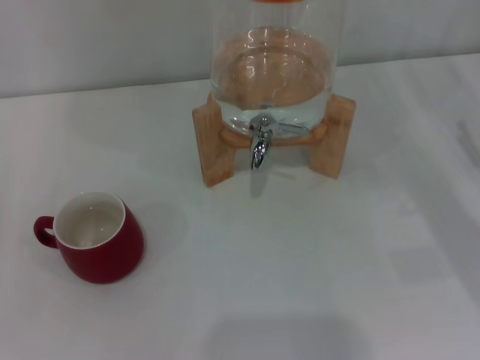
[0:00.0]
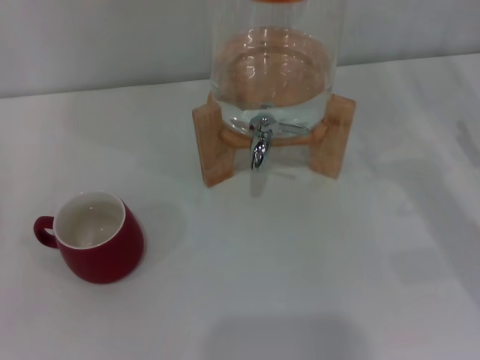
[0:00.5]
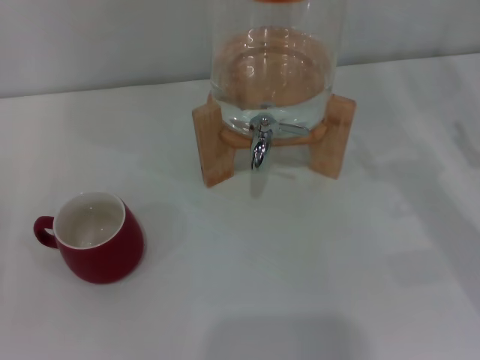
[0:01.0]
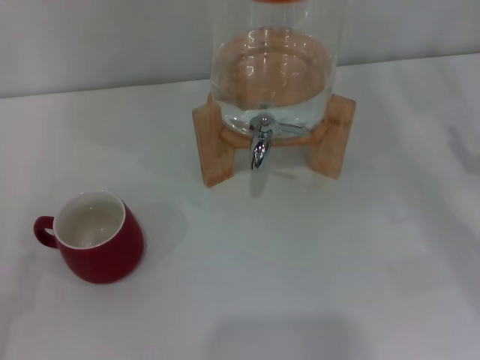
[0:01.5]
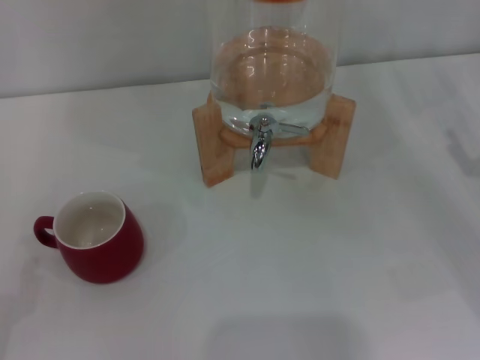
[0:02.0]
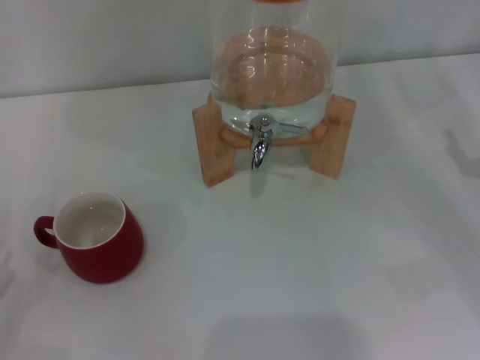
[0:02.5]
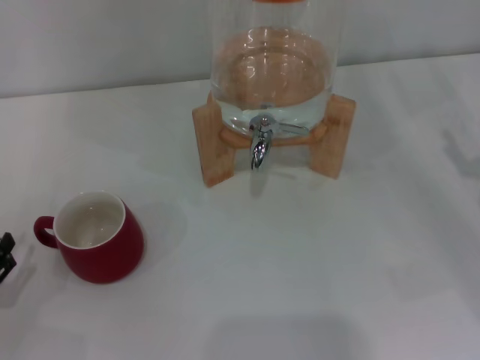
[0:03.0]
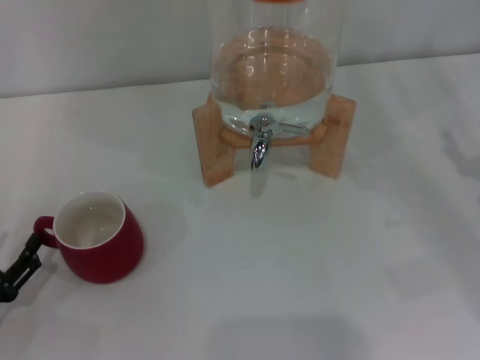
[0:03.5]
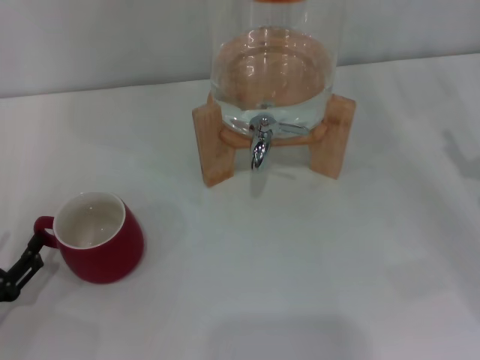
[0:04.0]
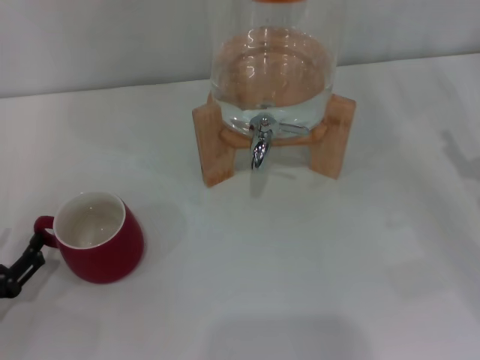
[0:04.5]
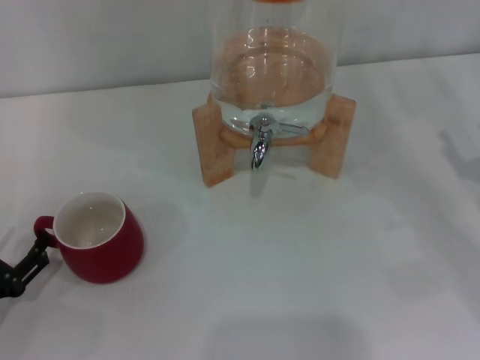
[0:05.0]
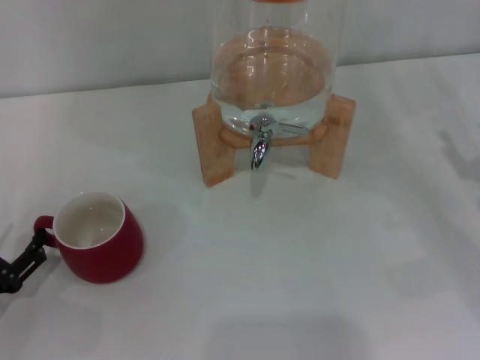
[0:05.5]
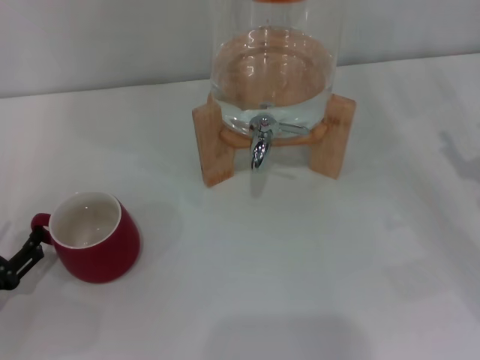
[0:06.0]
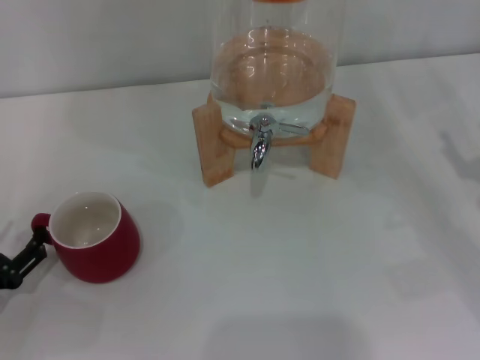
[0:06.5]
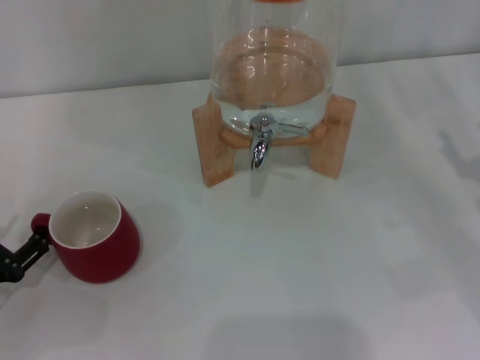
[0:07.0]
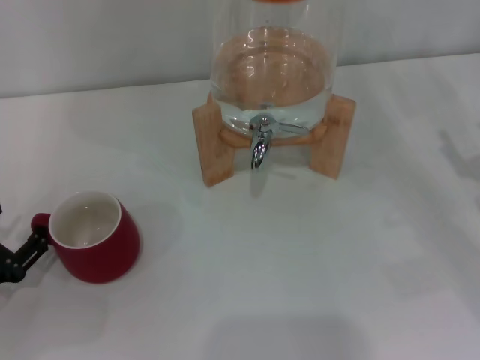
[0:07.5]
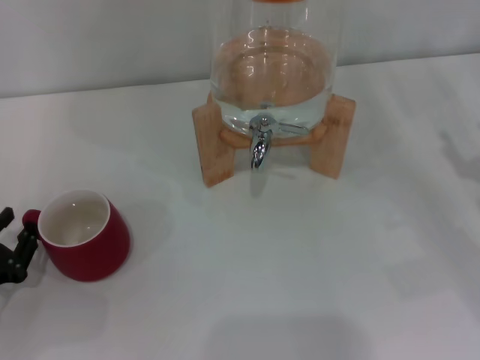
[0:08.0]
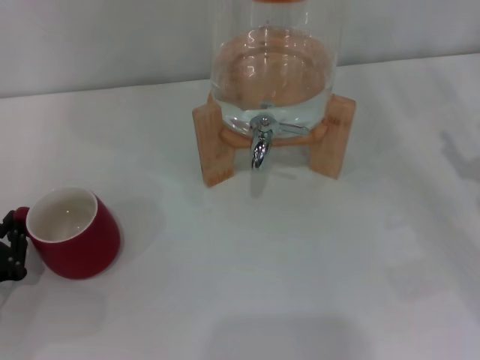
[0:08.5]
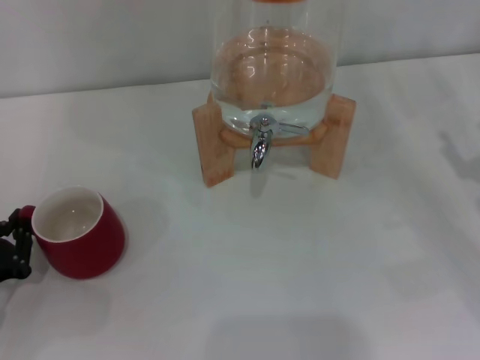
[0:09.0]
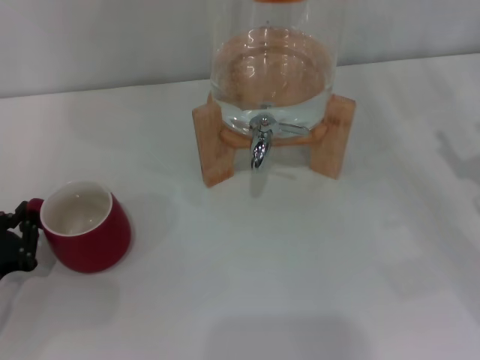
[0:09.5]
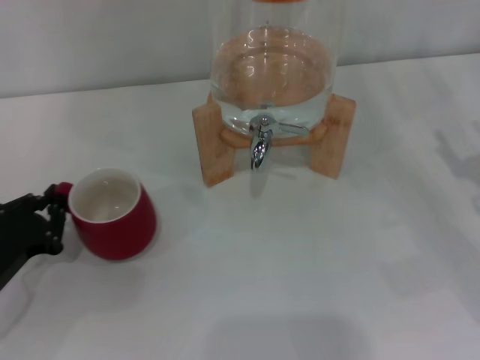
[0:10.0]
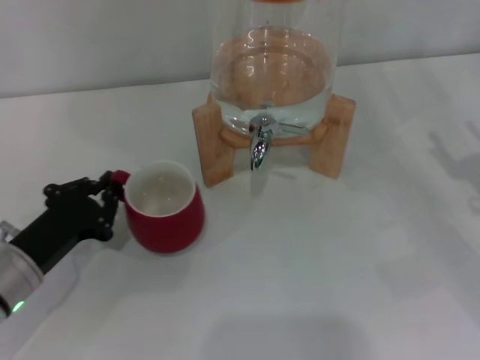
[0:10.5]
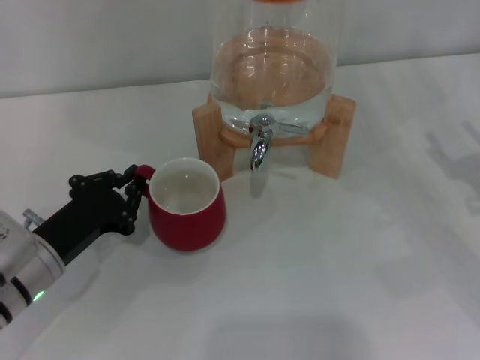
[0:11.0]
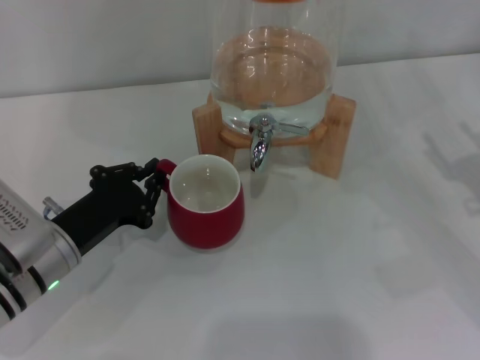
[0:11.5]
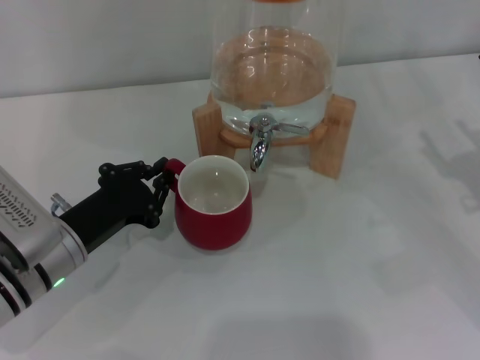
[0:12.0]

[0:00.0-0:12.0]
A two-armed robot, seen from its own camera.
Task of the whole recording: the left gripper pick up the red cup and place it horizontally under the faucet, the right gripper turn on the faucet to fill the cup, and then turn off the faucet.
0:02.0 to 0:04.0: The left gripper changes place by roughly 5 cm.
0:04.0 to 0:06.0: The grippers stay close to where they were, moving slightly.
0:06.0 to 0:08.0: The left gripper closes.
0:08.0 to 0:10.0: The left gripper closes.
0:10.0 to 0:12.0: The left gripper is displaced to the right by about 10 cm.

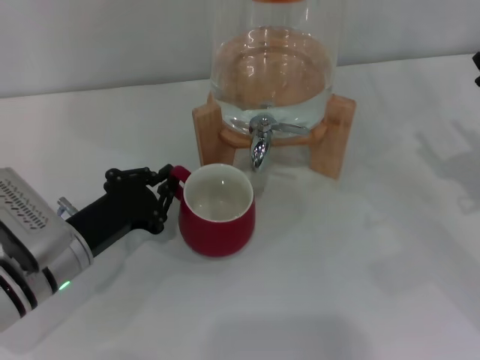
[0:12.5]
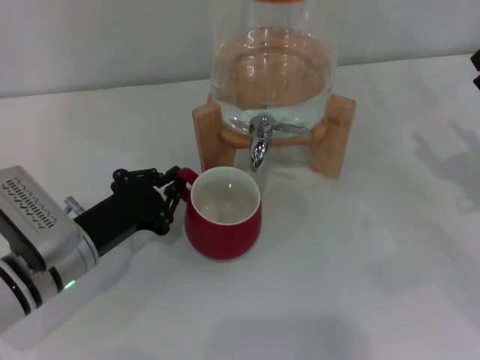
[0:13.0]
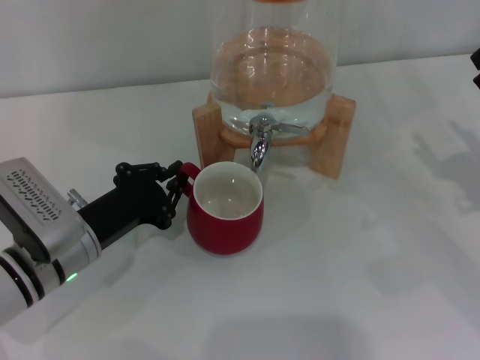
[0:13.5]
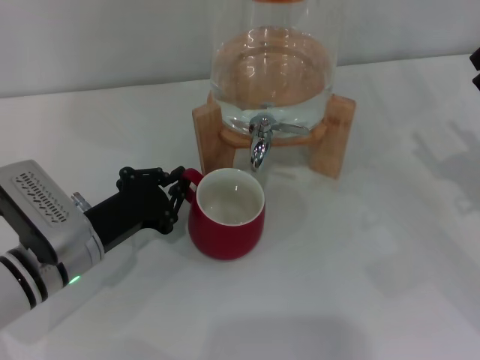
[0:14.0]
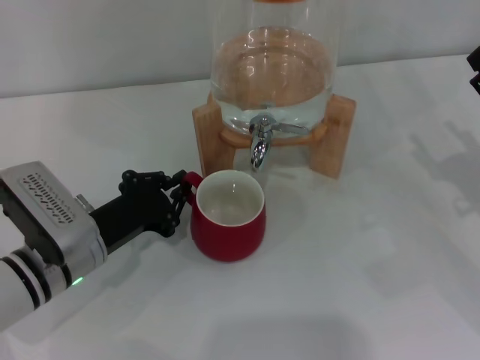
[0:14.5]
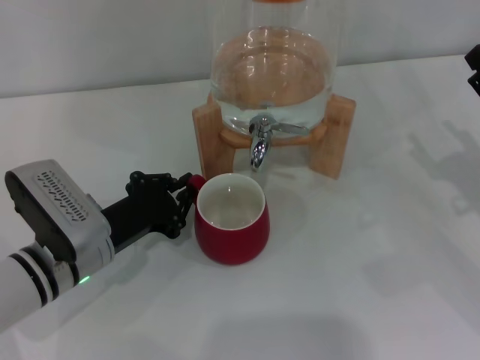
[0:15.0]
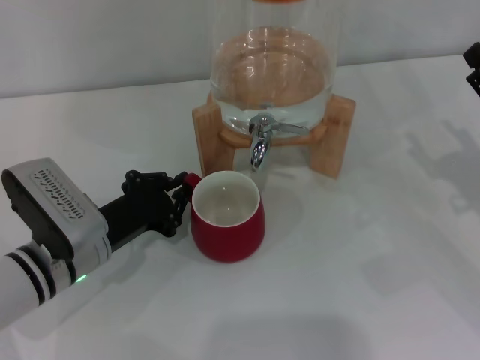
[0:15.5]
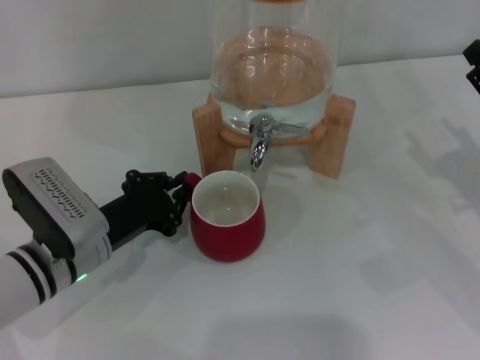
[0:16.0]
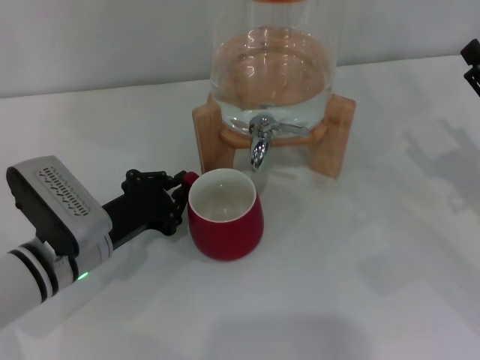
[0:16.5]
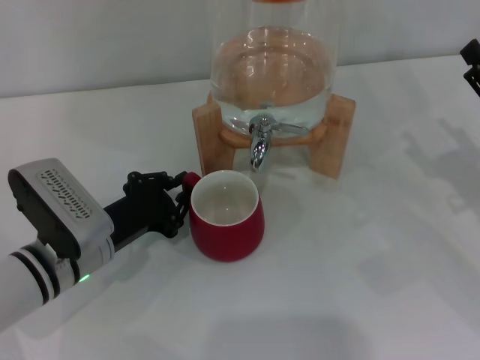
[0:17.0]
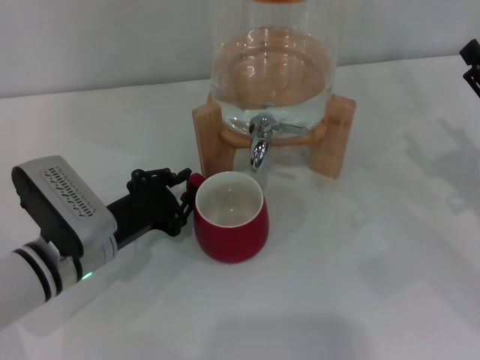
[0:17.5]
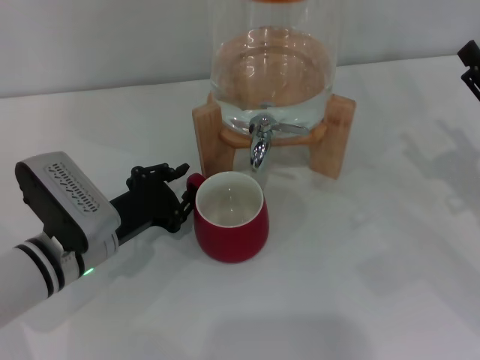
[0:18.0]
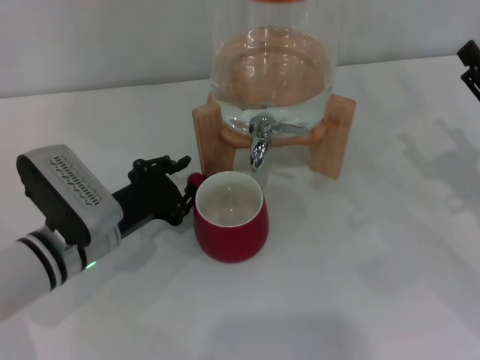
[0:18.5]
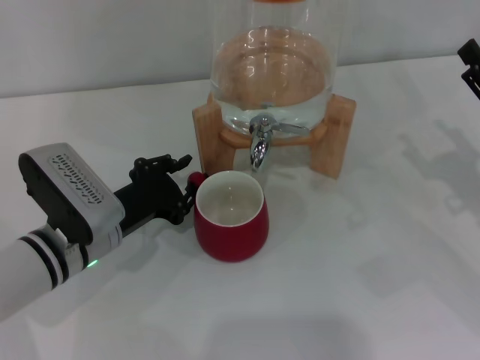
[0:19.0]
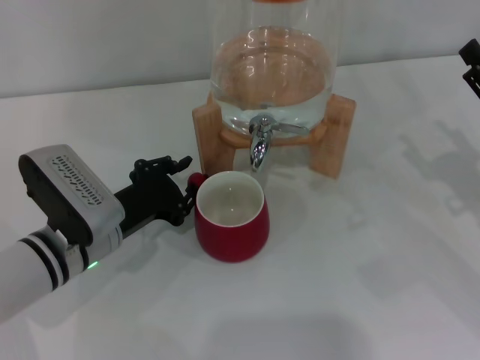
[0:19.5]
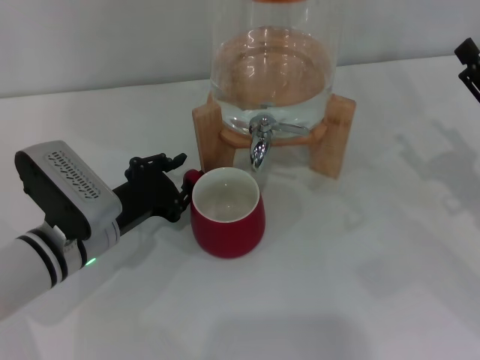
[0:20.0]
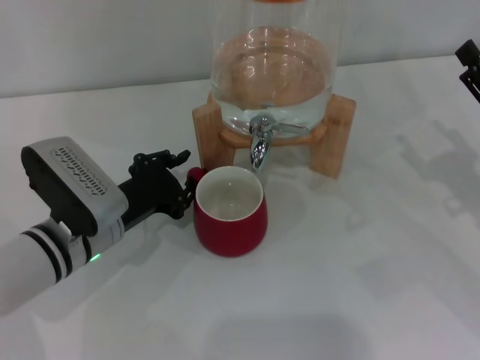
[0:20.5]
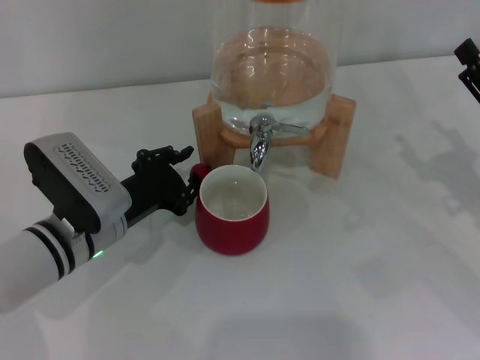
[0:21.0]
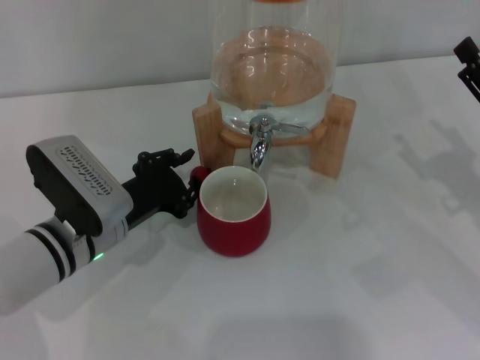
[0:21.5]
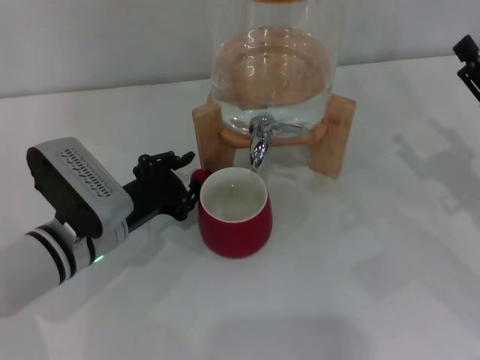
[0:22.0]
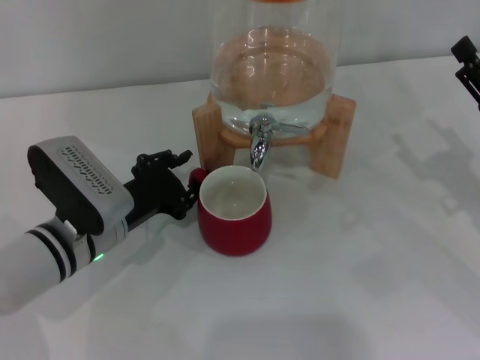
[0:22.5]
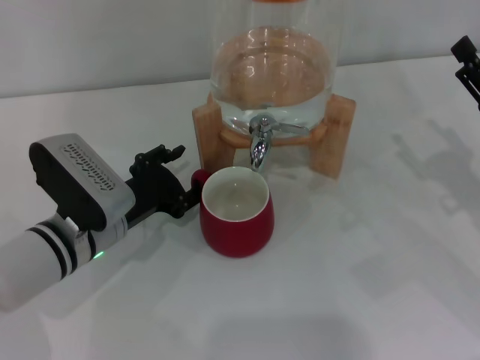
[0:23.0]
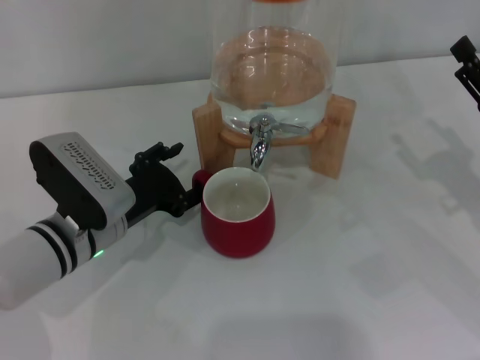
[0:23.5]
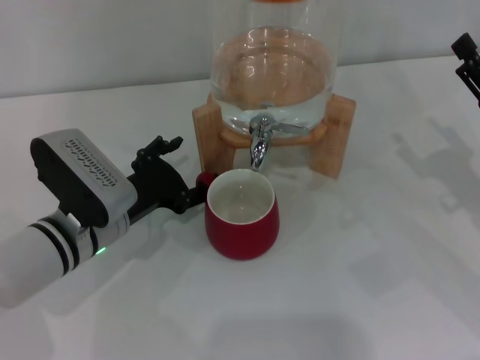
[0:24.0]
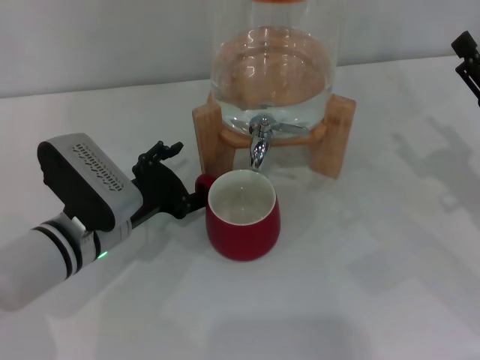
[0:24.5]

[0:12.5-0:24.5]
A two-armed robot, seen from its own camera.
Task of the whole recording: the left gripper pick up the red cup and place it horizontally under the faucet, the right gripper turn on the faucet to fill the cup, and then turn off the faucet.
0:12.5 to 0:14.5: Both grippers stay about where they are.
0:14.5 to 0:16.5: Both grippers stay about where they are.
0:16.5 to 0:18.5: The two grippers keep their place.
0:18.5 to 0:22.5: Both grippers stay put.
0:22.5 to 0:24.5: The left gripper opens up.

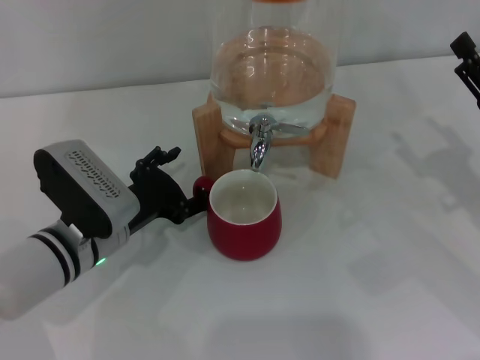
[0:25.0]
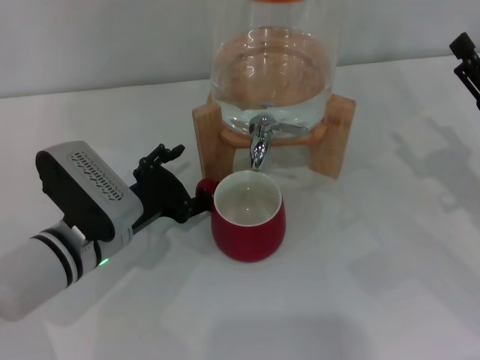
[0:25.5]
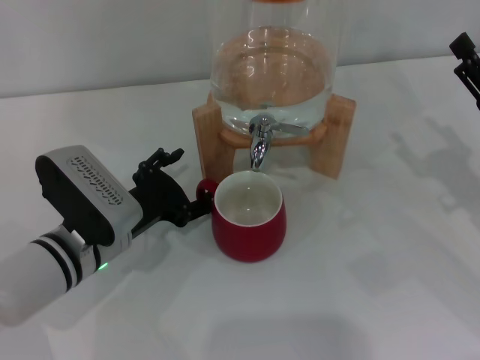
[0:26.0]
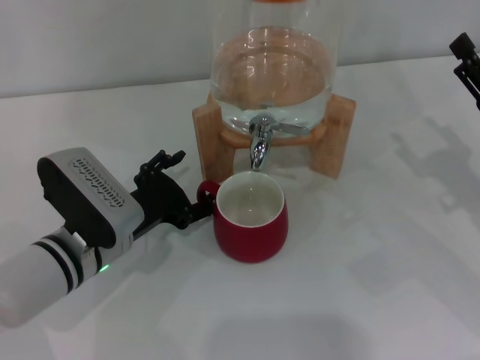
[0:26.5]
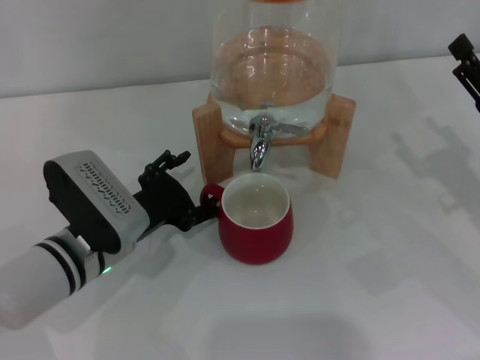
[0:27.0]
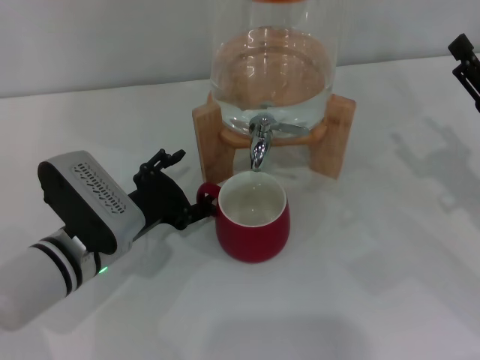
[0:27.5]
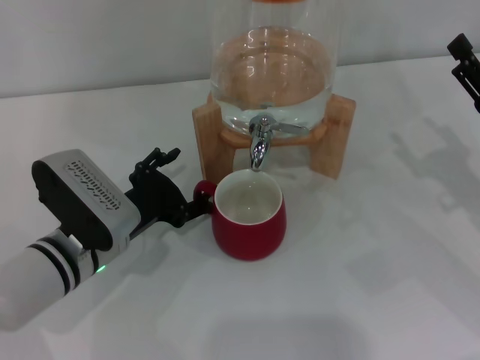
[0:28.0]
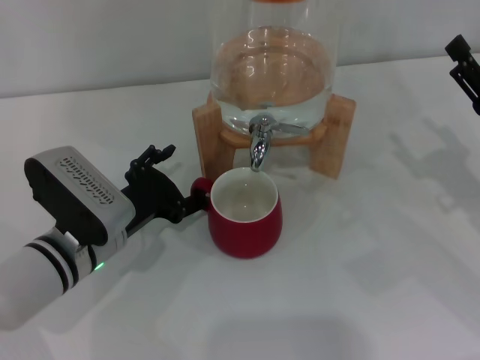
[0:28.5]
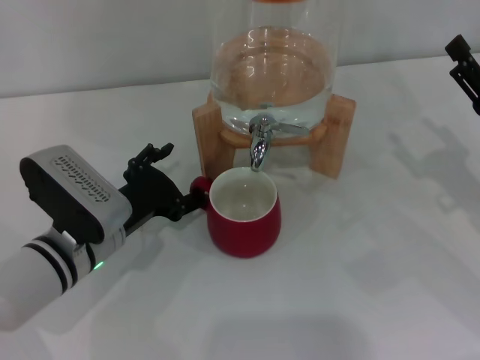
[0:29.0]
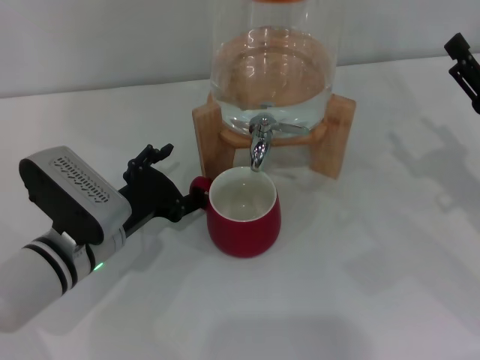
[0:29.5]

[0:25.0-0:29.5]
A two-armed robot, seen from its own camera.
Task of the whole recording: the left gripper pick up the red cup and place it horizontally under the faucet, the right gripper turn on the faucet to fill the cup, and then turn off the faucet.
0:25.0 to 0:27.0: Both grippers stay put.
0:27.0 to 0:29.5: The grippers stay close to where they were, moving slightly.
